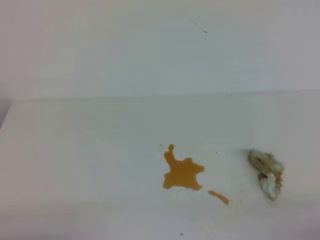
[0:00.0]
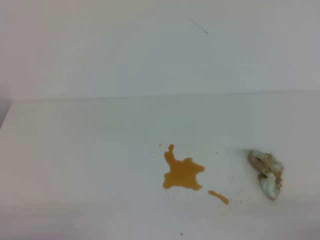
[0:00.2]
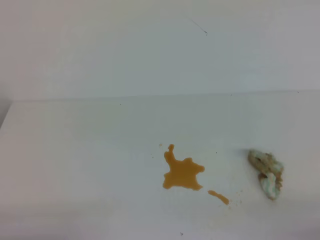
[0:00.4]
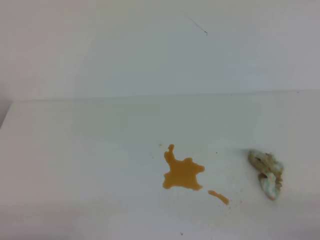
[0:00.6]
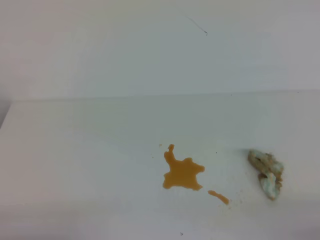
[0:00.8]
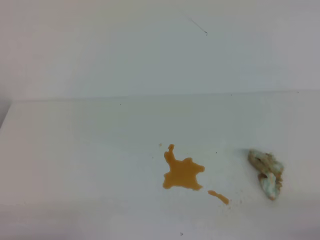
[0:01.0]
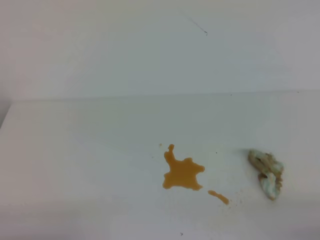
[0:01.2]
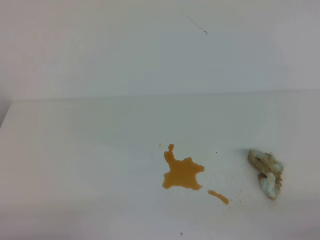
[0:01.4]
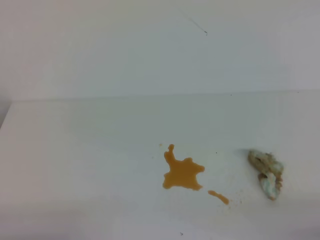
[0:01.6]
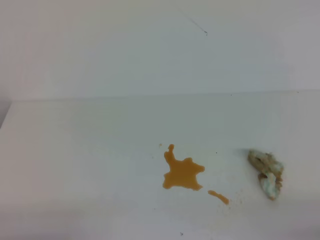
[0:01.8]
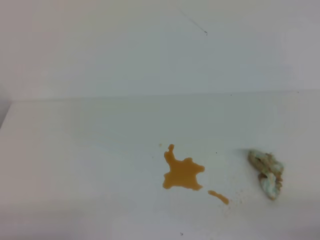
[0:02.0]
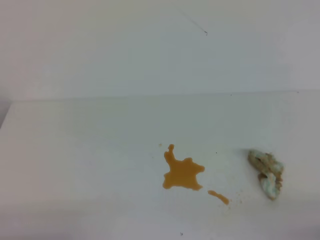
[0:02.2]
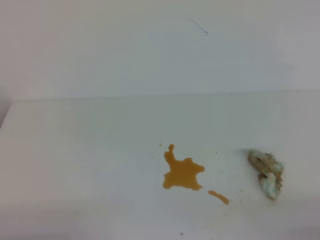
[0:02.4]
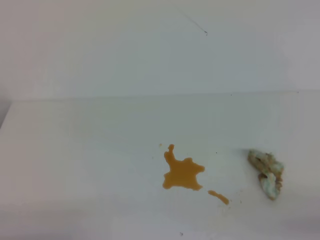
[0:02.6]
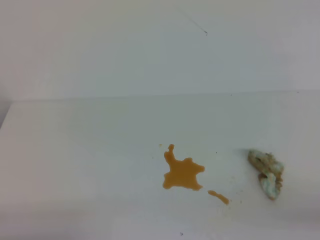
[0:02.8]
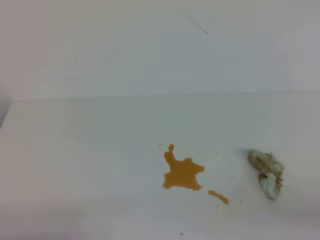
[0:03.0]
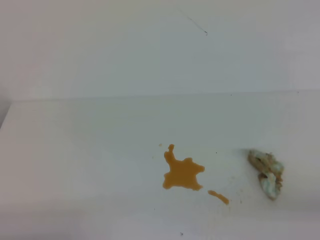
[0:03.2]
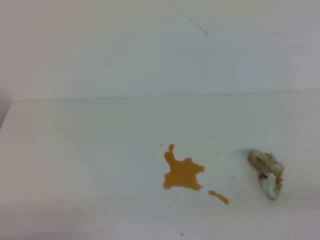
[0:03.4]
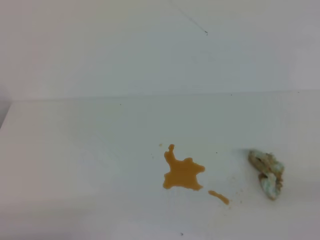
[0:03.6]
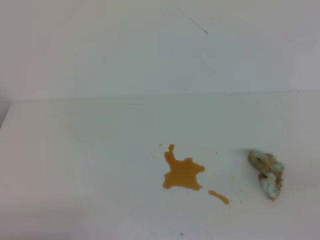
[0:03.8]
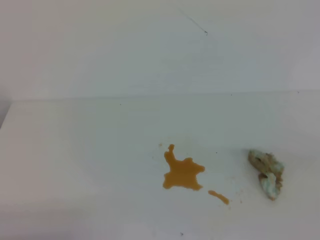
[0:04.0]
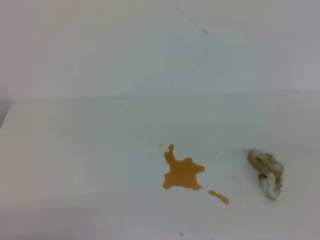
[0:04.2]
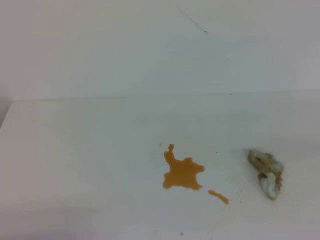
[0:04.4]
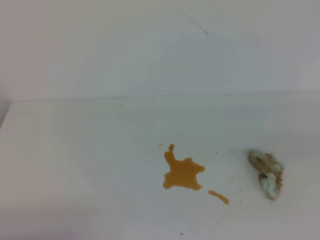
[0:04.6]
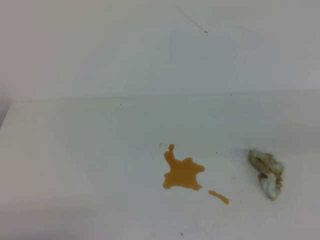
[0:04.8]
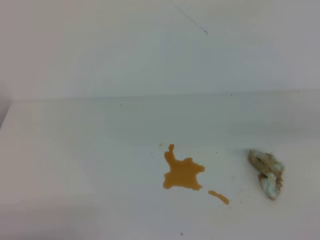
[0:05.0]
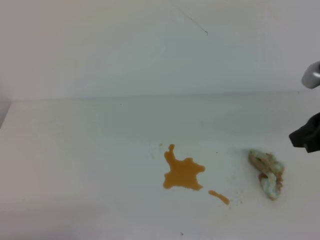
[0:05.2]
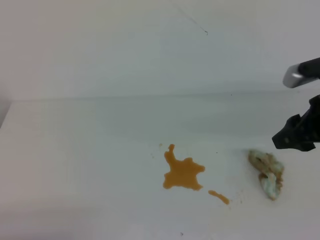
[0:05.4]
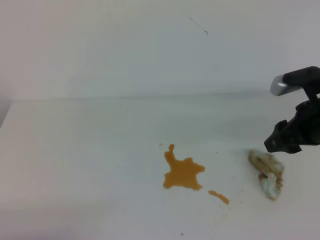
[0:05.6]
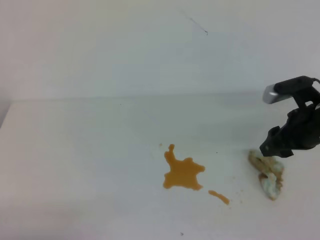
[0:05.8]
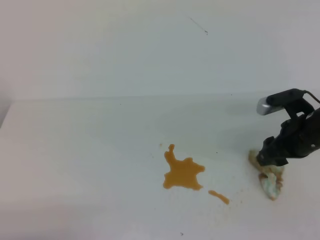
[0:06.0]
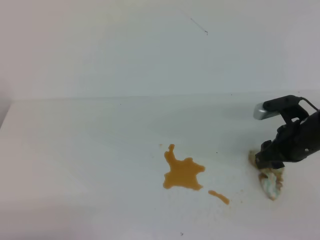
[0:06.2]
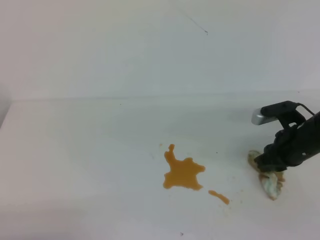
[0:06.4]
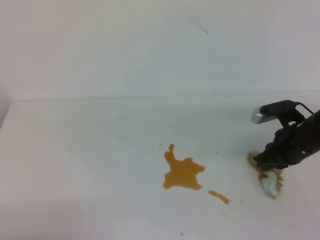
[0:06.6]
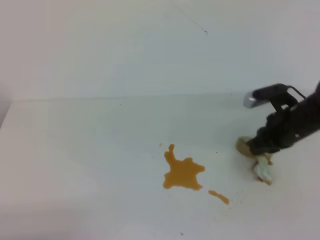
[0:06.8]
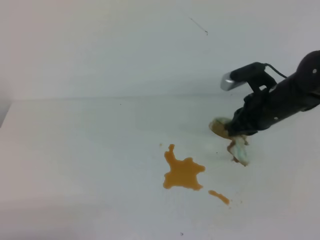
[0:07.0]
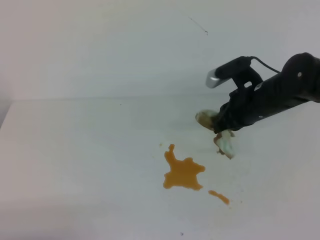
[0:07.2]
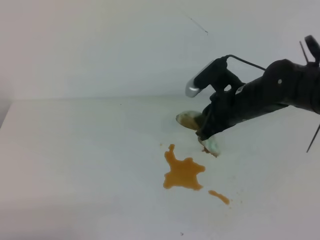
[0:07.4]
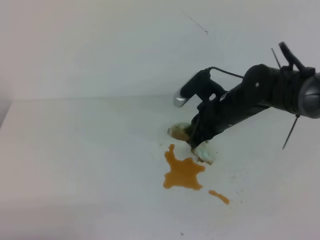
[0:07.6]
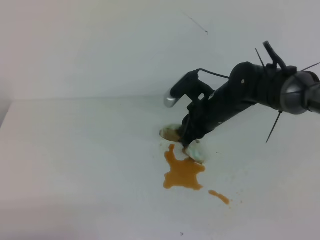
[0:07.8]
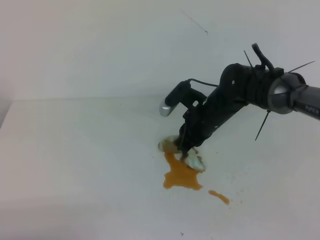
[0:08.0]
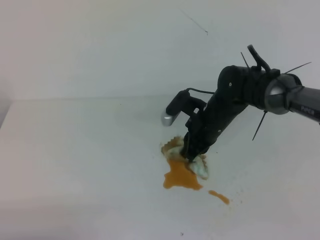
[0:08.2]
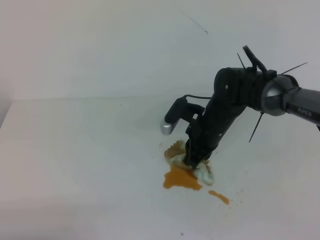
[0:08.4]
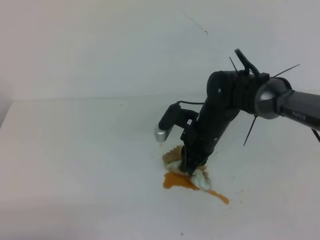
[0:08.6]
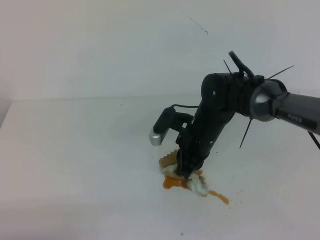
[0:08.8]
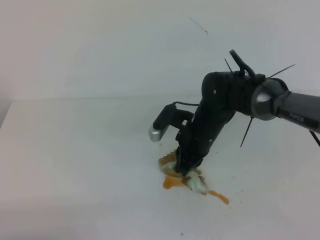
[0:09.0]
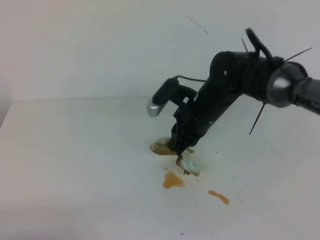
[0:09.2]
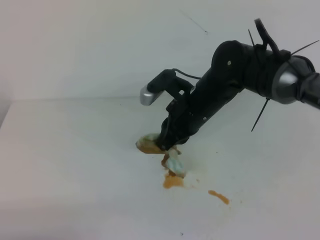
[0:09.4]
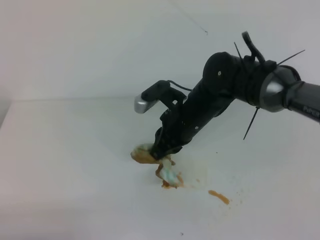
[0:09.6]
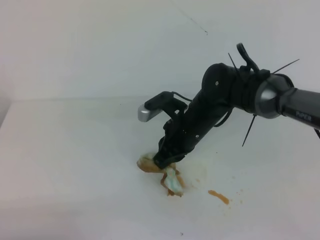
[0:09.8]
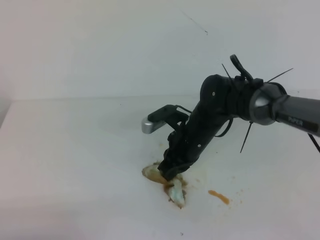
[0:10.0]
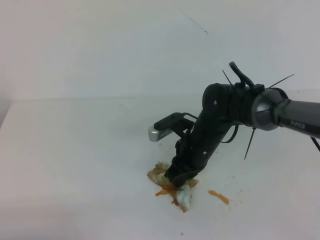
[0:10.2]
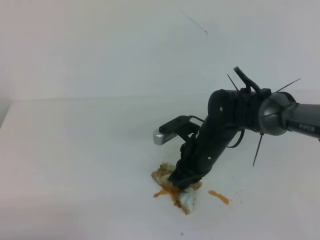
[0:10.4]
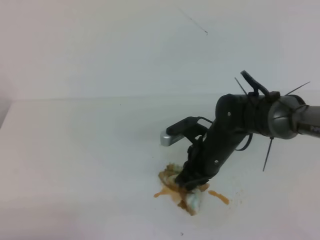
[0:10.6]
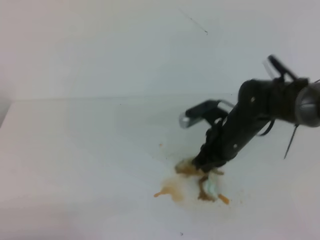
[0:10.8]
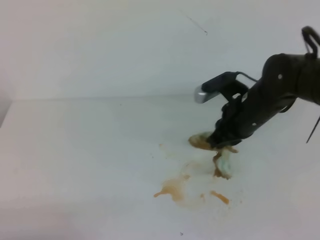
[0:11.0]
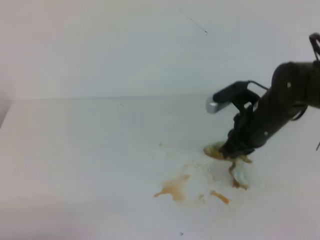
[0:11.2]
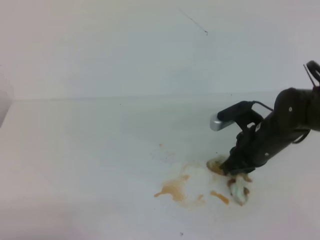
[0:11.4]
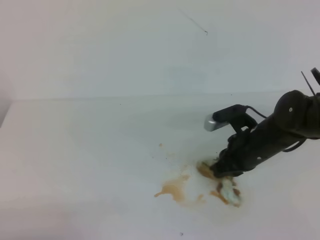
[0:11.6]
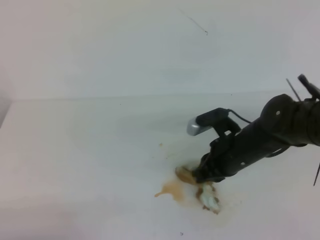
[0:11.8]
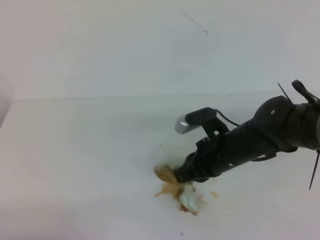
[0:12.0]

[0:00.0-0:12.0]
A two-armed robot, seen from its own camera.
0:04.4 to 0:06.0: The right gripper is displaced forward and downward by about 25 cm, and opens.
0:06.0 to 0:07.6: The right gripper travels to the left and forward by some 15 cm, and closes.
0:07.6 to 0:09.0: The right gripper moves about 5 cm.
0:09.0 to 0:10.4: The right gripper ends up roughly 5 cm from where it was.
0:10.4 to 0:12.0: The right gripper moves roughly 10 cm to the right and comes back.

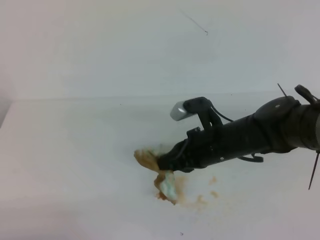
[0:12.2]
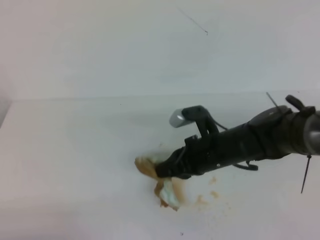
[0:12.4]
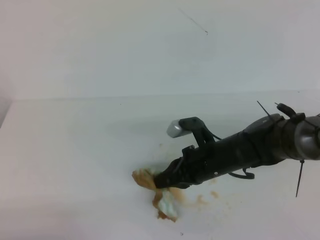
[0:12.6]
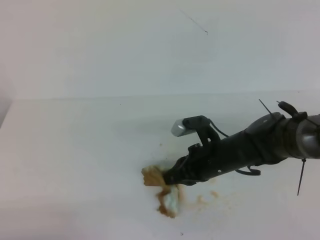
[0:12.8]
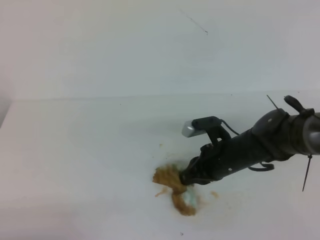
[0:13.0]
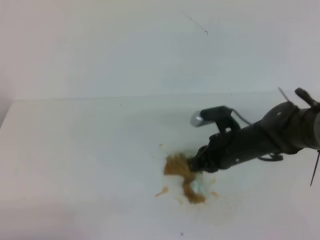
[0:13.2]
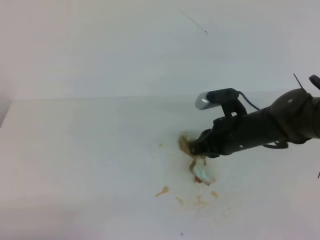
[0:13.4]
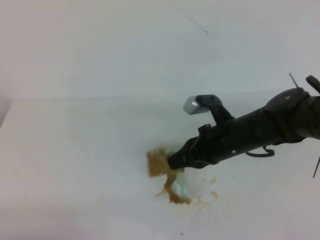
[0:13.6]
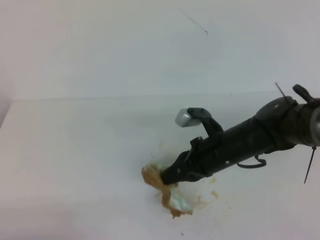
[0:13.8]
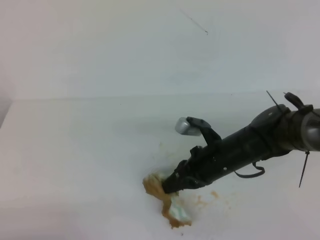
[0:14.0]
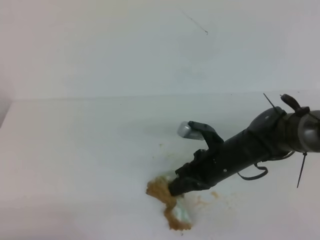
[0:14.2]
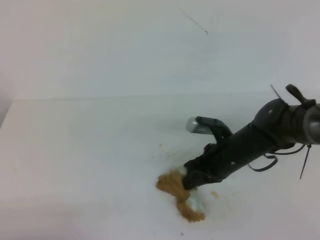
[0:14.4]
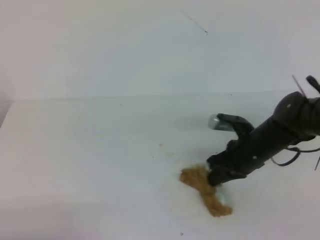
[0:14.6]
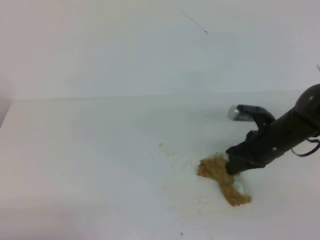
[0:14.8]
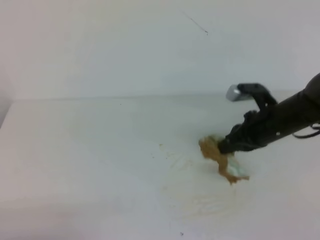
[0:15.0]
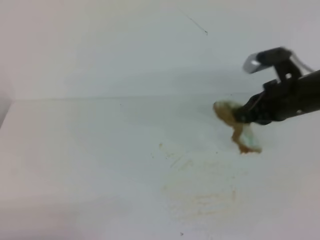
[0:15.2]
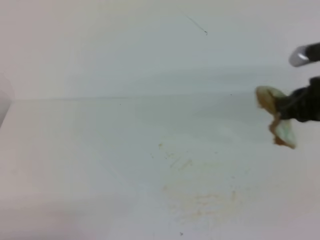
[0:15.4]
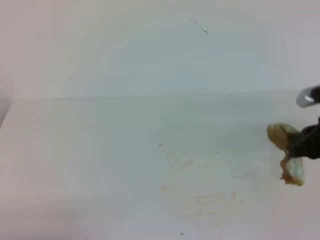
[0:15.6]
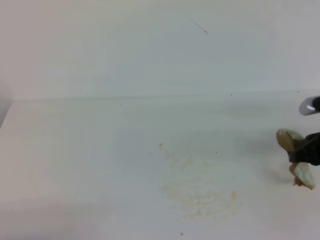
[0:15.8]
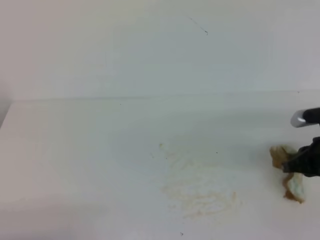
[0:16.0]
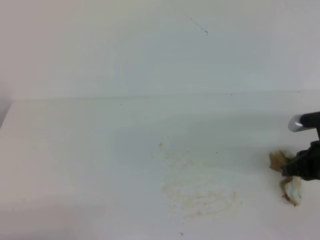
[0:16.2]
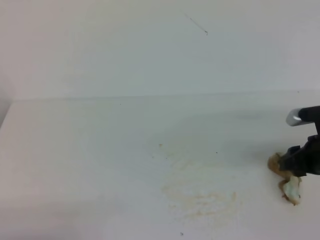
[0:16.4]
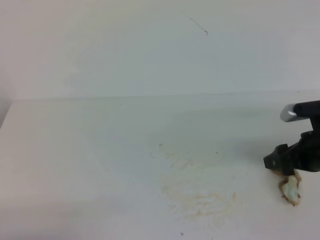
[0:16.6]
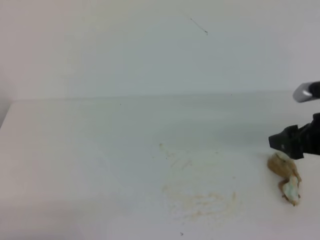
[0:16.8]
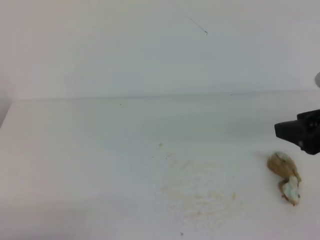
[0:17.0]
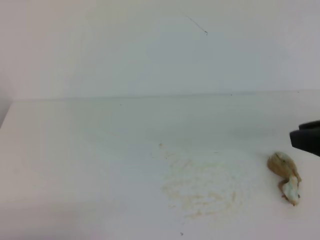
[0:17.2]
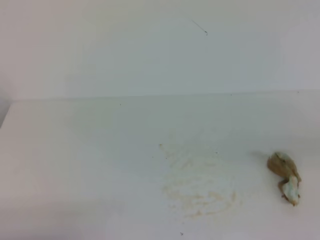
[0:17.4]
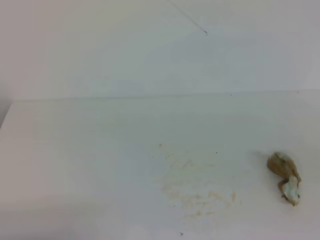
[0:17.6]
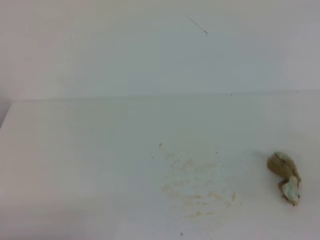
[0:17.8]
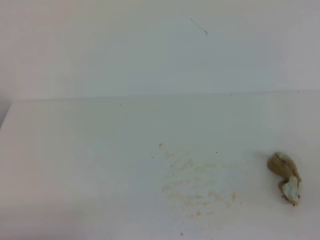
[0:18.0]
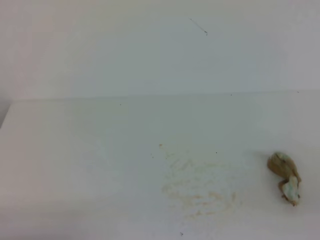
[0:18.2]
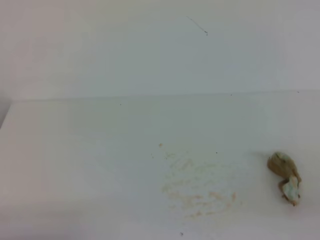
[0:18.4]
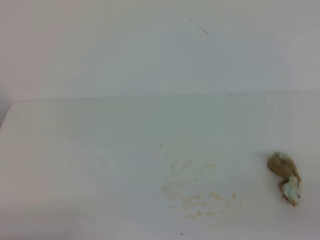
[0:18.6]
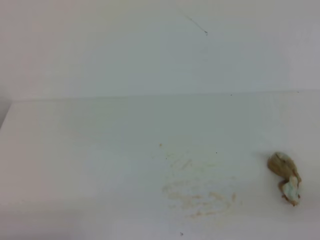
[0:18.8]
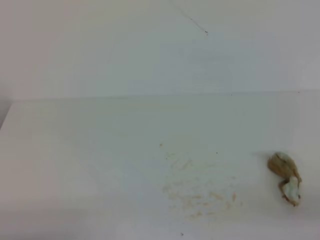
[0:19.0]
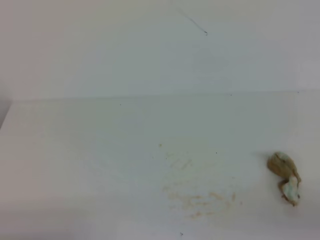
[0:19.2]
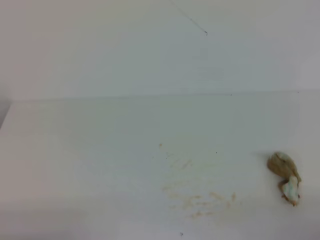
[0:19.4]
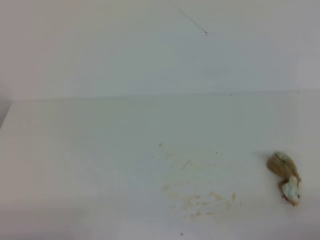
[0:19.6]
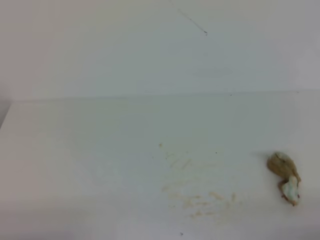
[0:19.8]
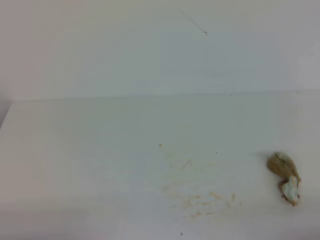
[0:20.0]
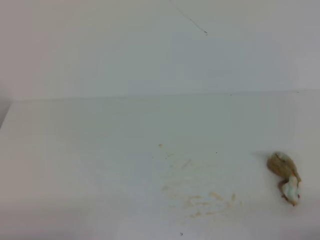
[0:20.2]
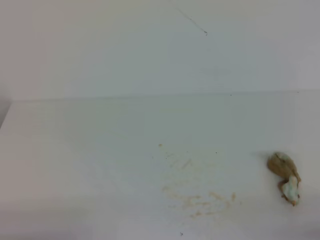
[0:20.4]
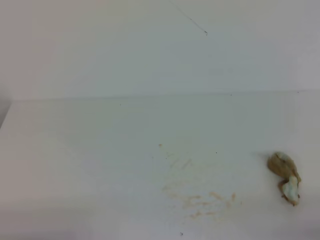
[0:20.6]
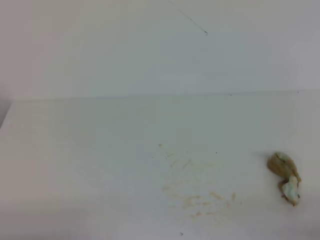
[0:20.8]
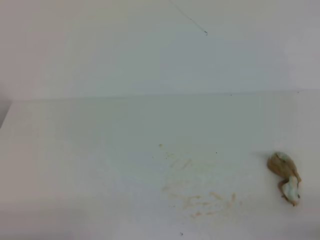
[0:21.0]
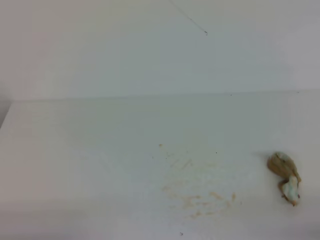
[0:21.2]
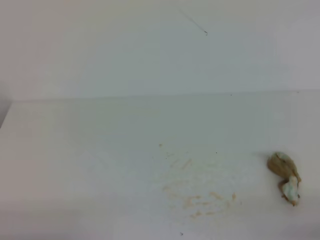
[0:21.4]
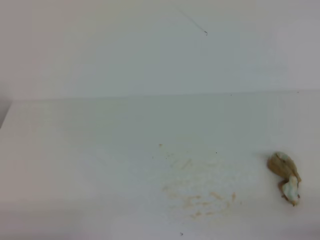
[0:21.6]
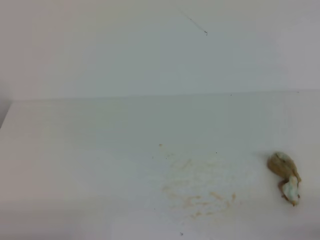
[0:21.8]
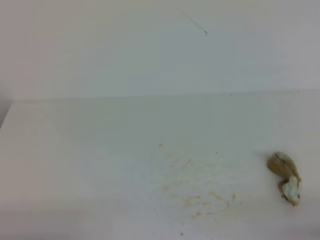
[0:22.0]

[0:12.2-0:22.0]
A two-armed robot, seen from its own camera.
0:12.2 to 0:13.6: The left gripper opens and closes again.
0:13.6 to 0:15.0: The right gripper heads to the right, covering some 10 cm.
0:15.0 to 0:16.4: The right gripper shifts some 10 cm to the right and backward, moves some 5 cm upward and comes back, and opens.
0:16.4 to 0:17.8: The right gripper travels backward and upward by some 25 cm, and closes.
